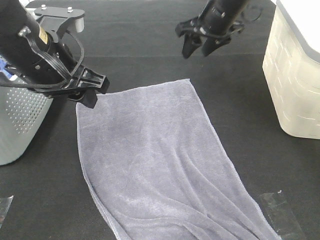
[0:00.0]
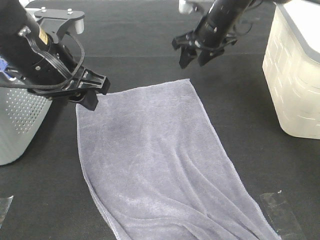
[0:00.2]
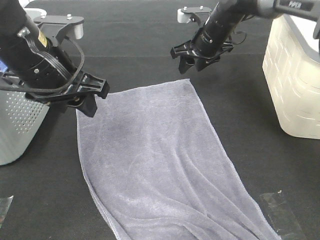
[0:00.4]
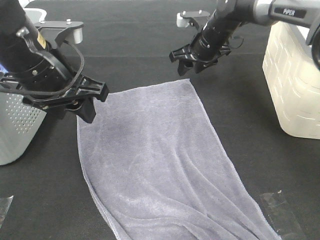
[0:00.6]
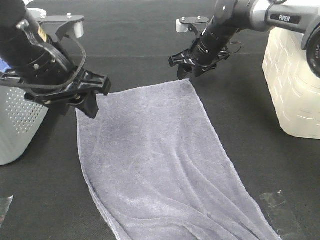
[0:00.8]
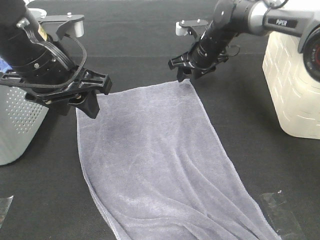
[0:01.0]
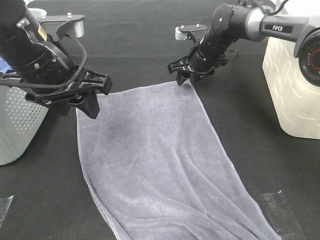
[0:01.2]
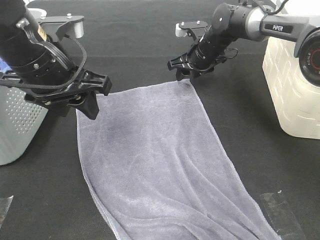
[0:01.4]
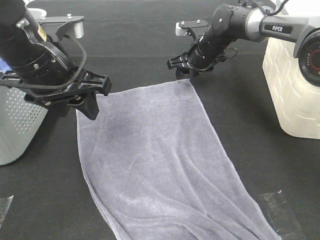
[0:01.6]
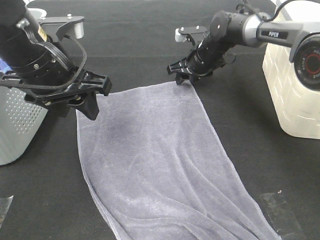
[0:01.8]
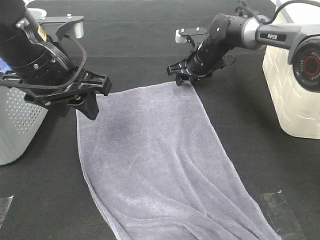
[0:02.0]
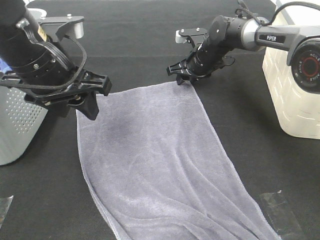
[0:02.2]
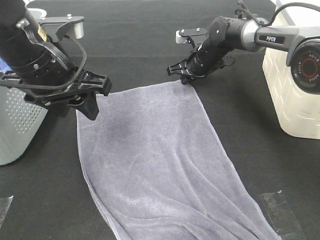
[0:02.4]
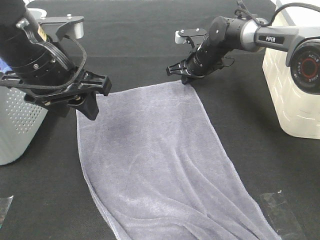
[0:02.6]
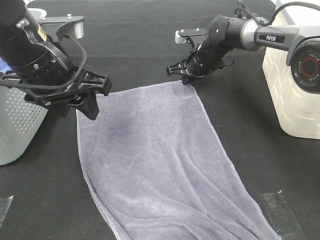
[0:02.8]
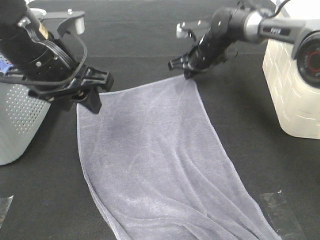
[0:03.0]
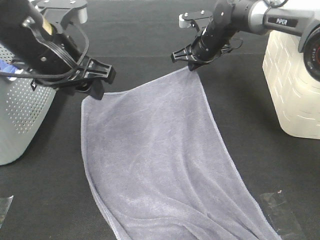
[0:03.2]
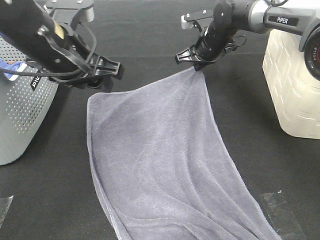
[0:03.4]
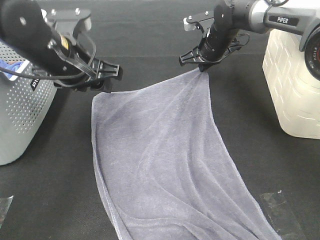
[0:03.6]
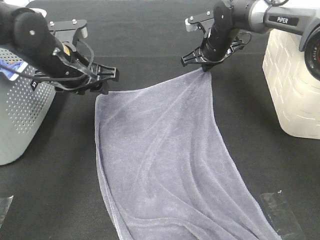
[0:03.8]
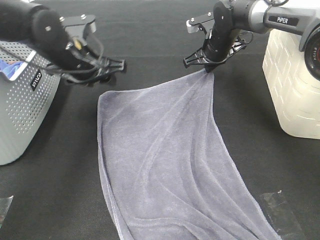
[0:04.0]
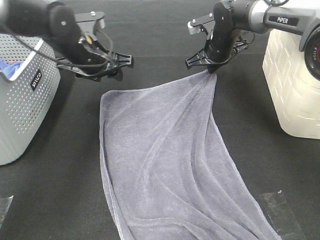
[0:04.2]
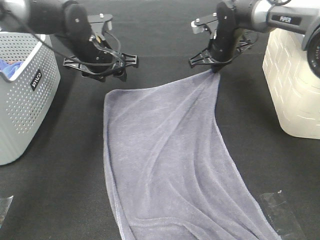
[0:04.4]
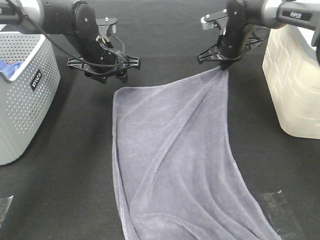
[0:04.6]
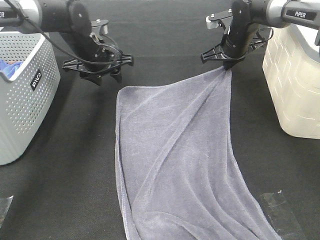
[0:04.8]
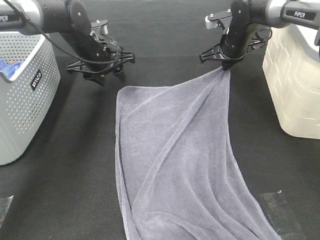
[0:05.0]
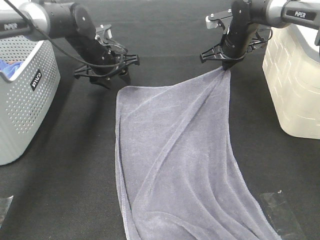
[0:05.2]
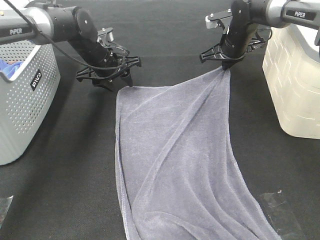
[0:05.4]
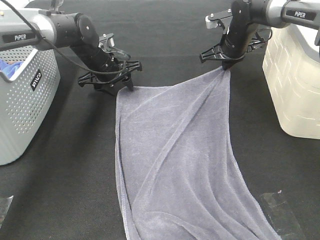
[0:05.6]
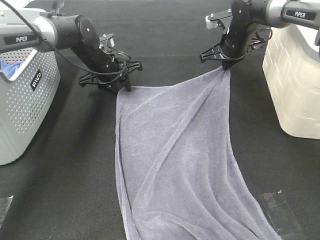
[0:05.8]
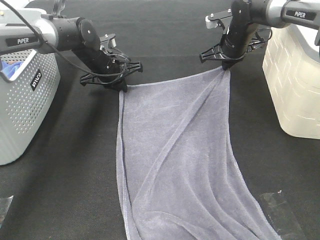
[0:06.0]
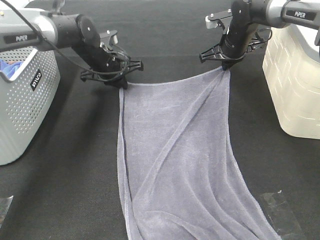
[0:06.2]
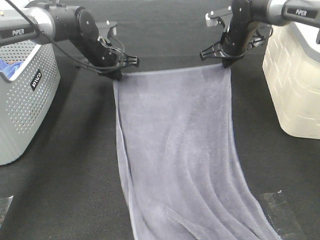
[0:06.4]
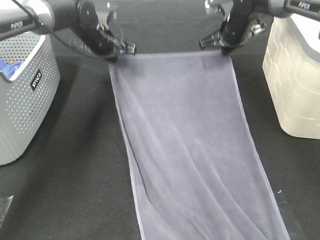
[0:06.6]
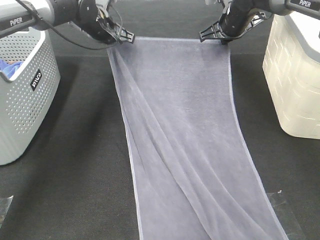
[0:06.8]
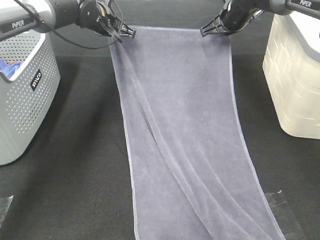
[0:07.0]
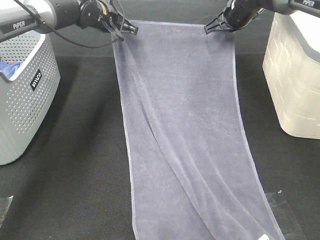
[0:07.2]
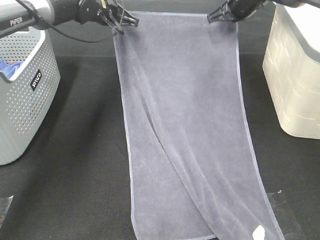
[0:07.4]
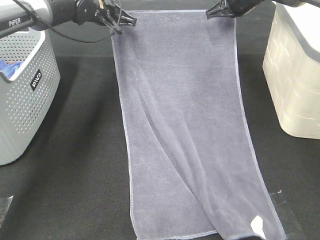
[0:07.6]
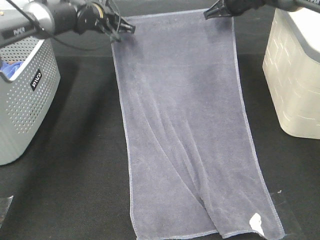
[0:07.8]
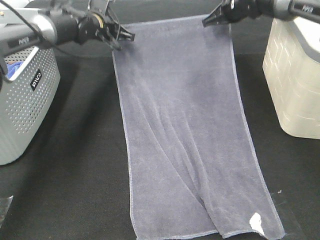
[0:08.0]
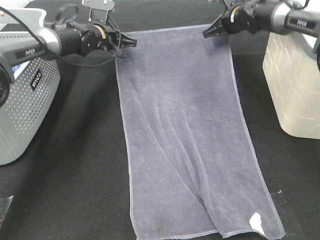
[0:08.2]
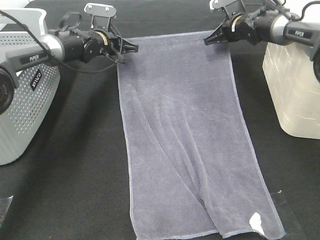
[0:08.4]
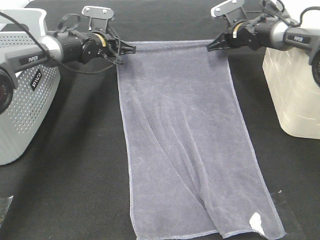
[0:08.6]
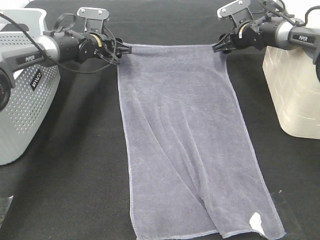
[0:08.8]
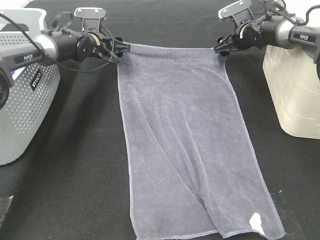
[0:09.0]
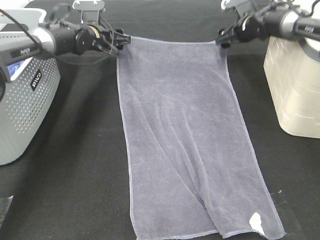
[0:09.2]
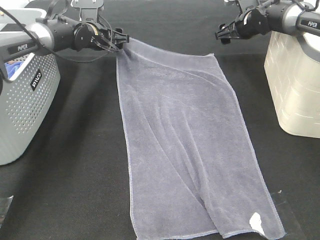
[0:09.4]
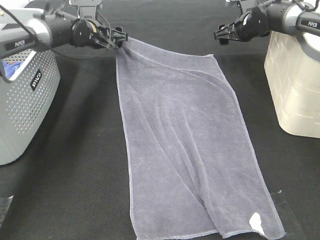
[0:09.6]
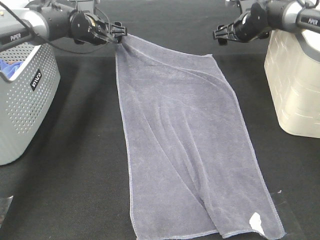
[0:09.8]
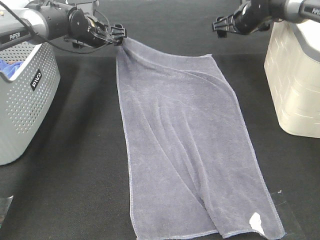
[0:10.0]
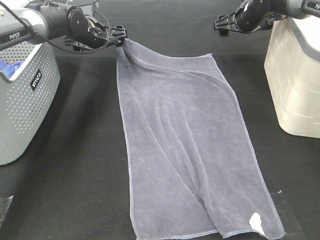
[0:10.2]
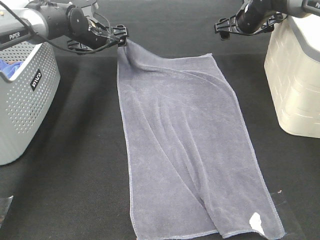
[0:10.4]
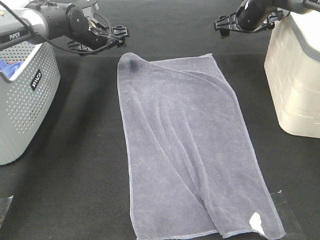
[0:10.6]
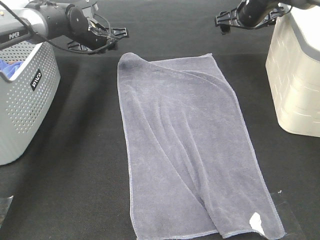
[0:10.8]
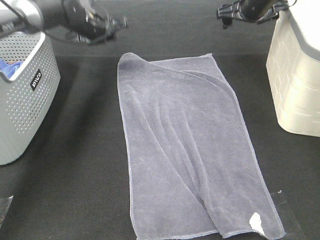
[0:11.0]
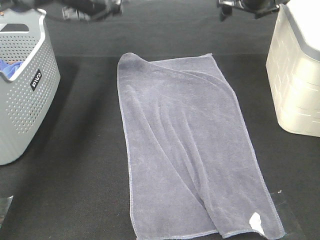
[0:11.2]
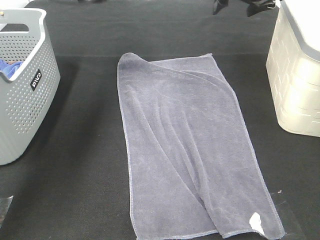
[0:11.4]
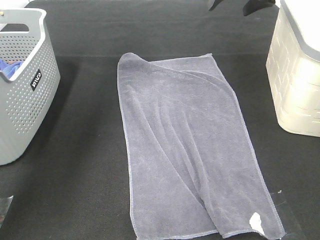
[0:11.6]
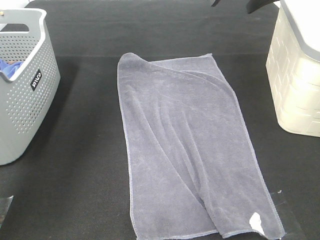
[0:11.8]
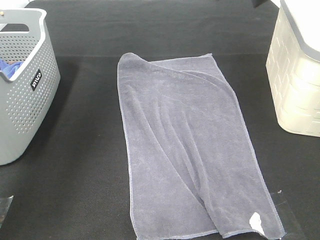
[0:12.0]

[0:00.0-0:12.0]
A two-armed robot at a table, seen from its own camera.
Task of the whole recording: Remove the towel and place it.
Step, 0:00.0 to 0:02.4: Right hand:adjust the gray towel.
0:00.0 to 0:01.6: The right gripper is displaced downward by some 10 cm.
0:01.6 to 0:03.0: The right gripper closes its fingers.
0:03.0 to 0:04.4: The left gripper travels forward and downward by approximately 20 cm.
0:04.4 to 0:06.0: The left gripper heads downward and forward, covering roughly 10 cm, and closes up.
0:06.0 to 0:07.6: The right gripper is displaced upward by about 10 cm. The left gripper heads upward and forward, covering some 10 cm.
0:07.6 to 0:09.0: Both grippers travel together downward, some 10 cm. The left gripper opens its fingers, while the right gripper opens.
0:09.0 to 0:10.4: The right gripper shifts some 5 cm upward.
0:10.4 to 0:12.0: Both grippers travel together upward and backward, about 25 cm.

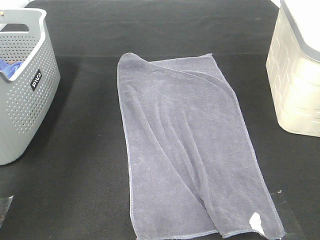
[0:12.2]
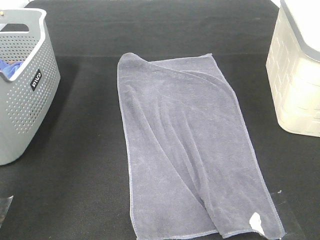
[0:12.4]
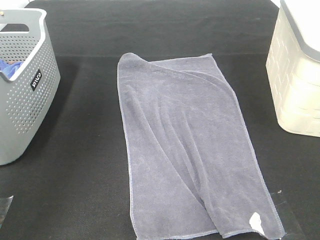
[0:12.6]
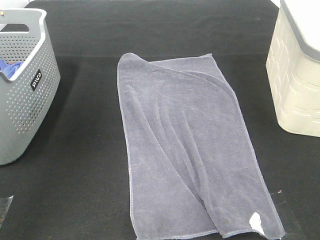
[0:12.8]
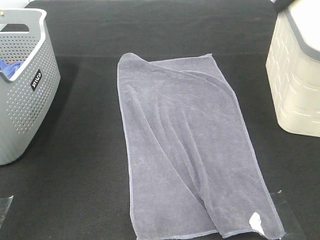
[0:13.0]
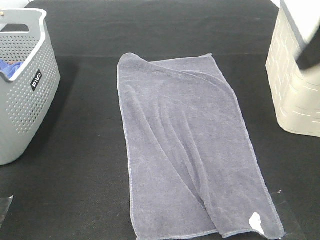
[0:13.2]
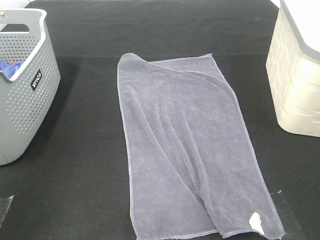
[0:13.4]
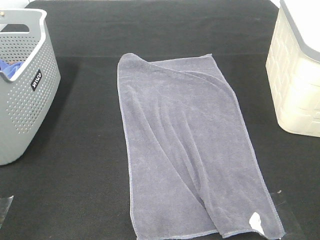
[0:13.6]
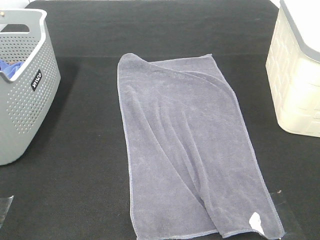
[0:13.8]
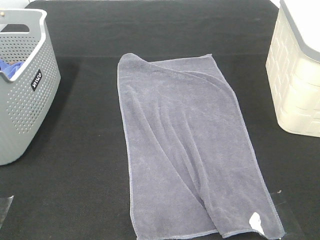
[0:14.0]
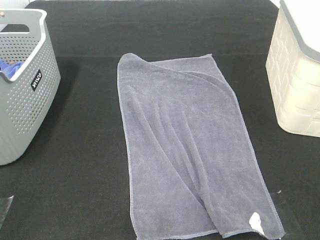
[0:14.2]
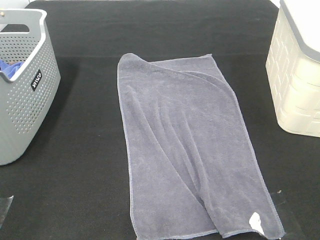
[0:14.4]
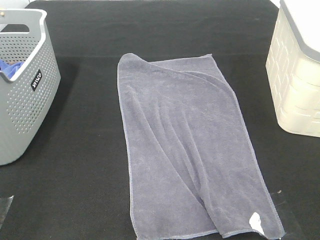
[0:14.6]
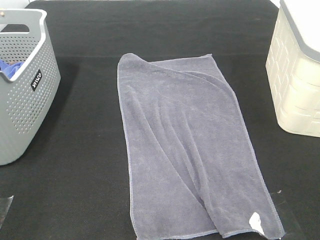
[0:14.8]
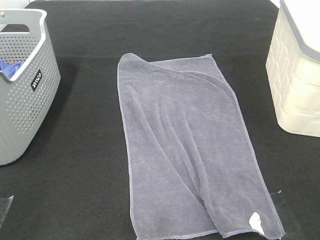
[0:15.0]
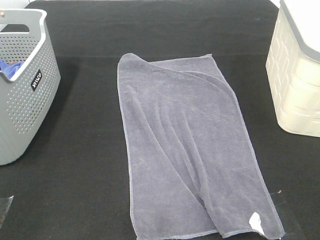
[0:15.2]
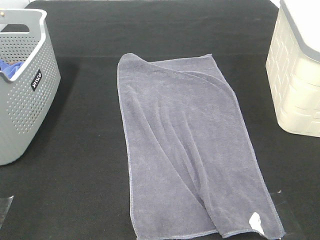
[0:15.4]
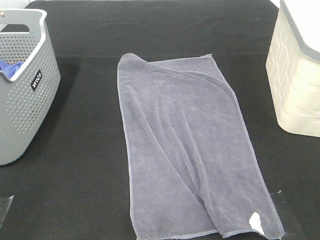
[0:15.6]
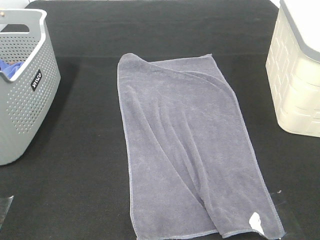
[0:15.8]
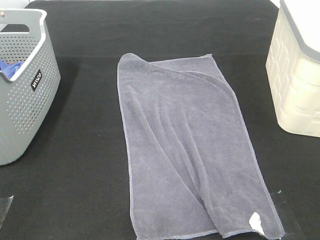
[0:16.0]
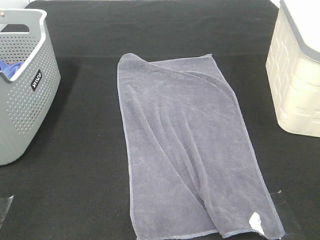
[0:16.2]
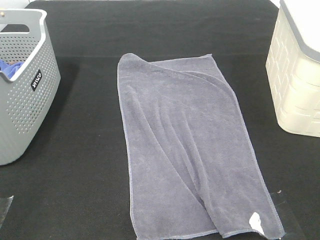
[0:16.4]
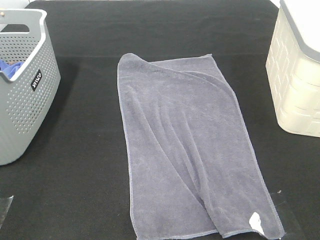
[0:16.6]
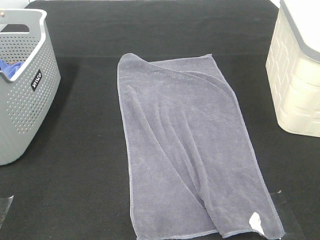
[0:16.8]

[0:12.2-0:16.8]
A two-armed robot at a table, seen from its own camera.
Task of the whole recording: Remove the towel and place it.
0:12.2 to 0:13.8: Both grippers travel together backward, some 40 cm.

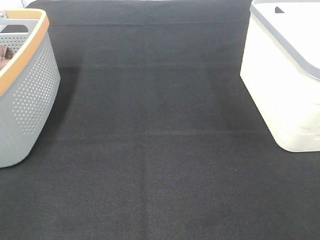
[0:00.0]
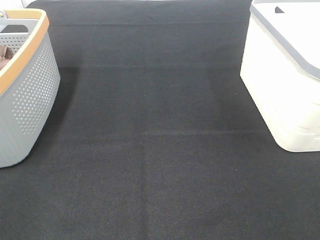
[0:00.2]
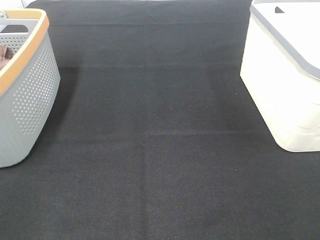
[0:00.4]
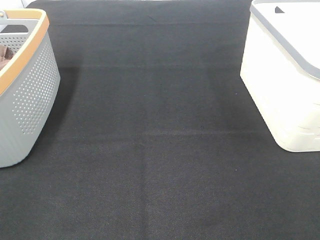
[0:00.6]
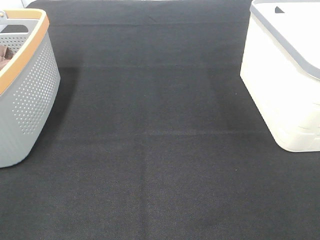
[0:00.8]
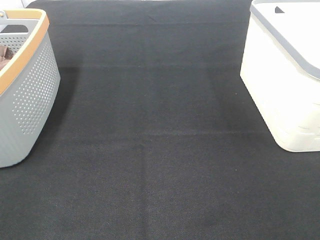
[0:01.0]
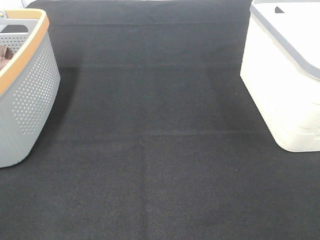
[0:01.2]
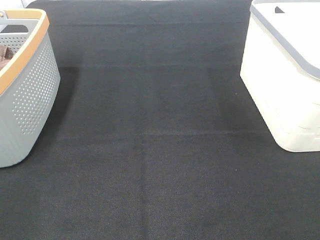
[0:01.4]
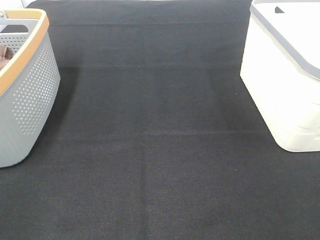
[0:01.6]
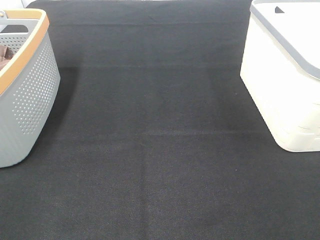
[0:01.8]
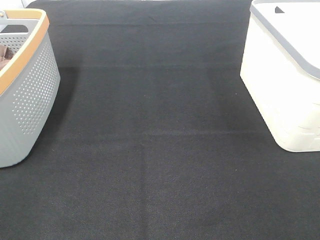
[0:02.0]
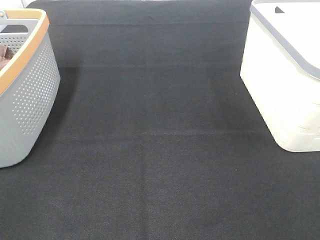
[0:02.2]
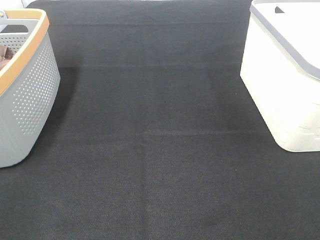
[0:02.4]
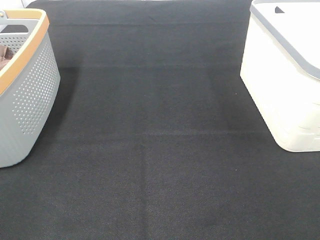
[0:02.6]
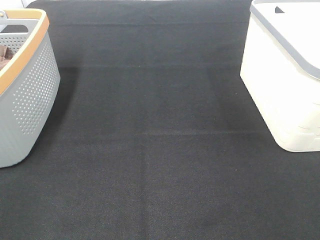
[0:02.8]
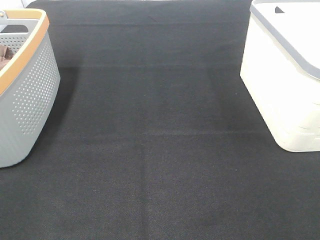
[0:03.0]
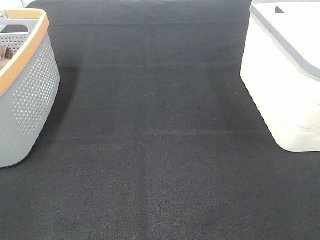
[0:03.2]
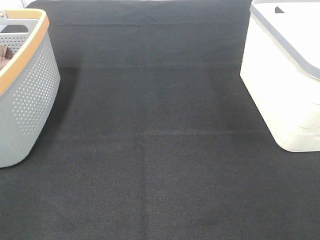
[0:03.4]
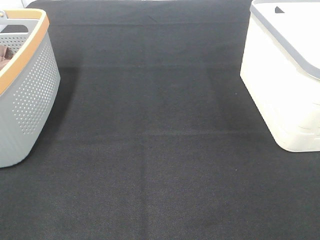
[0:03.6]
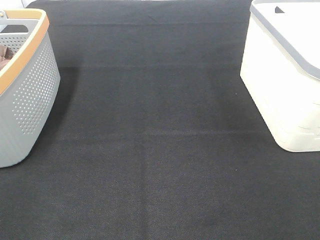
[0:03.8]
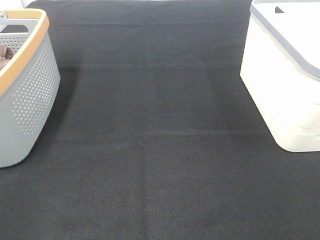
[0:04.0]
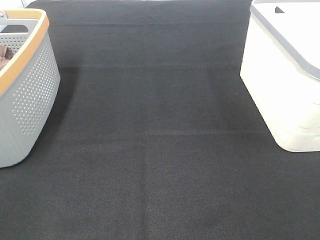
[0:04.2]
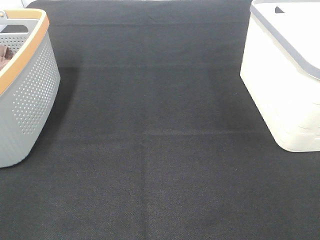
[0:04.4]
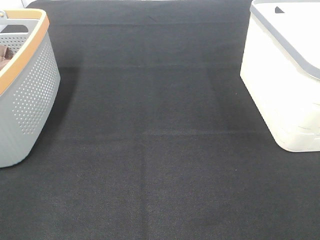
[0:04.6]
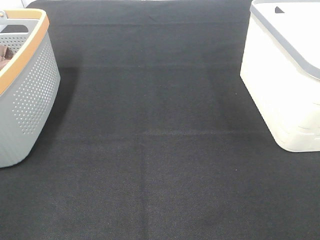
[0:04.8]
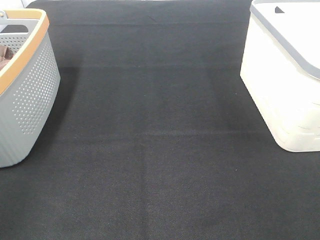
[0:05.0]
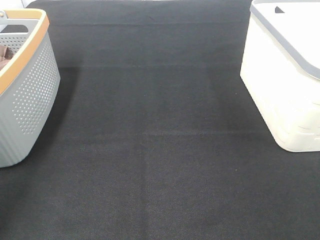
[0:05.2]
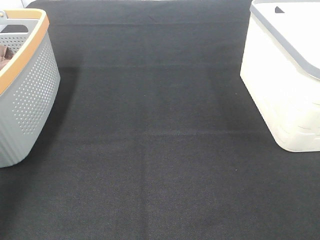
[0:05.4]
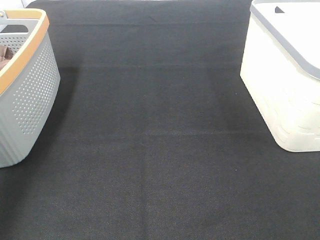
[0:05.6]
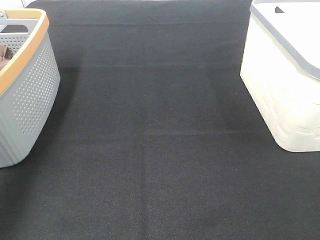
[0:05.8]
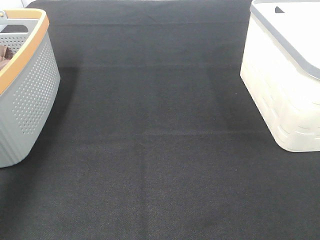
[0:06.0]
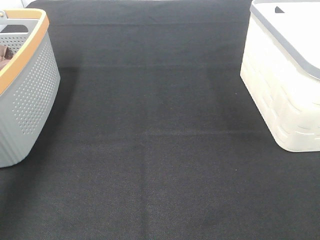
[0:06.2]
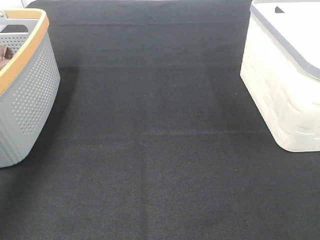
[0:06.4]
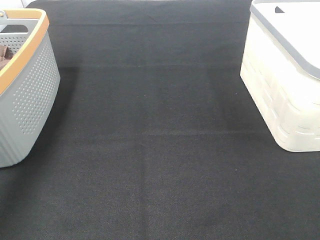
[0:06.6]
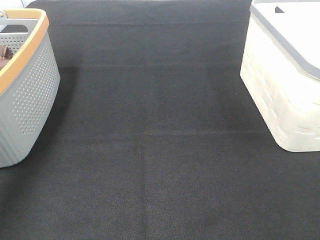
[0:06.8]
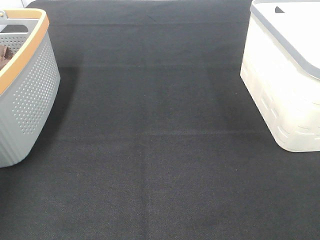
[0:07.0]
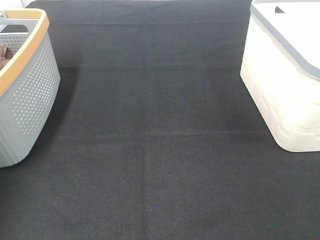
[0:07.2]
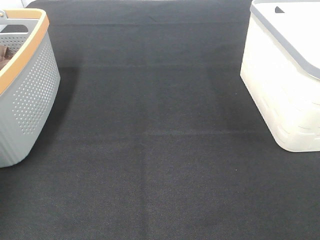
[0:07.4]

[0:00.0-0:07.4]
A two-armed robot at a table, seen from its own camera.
Task of the whole recording: Remove the towel and place it.
0:00.0 to 0:04.4: The two grippers keep their place.
0:04.4 to 0:06.0: The left gripper moves forward, about 30 cm.
0:06.0 to 0:07.4: The left gripper shifts about 15 cm forward, to the left and downward.
